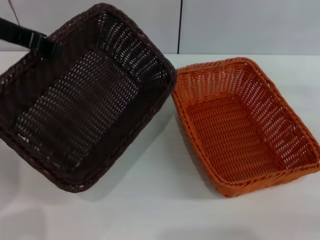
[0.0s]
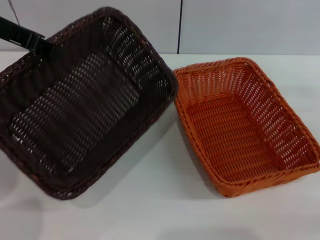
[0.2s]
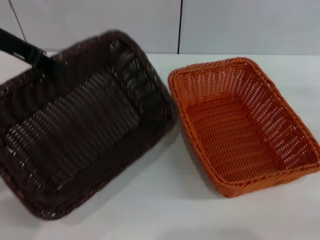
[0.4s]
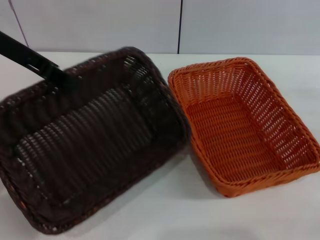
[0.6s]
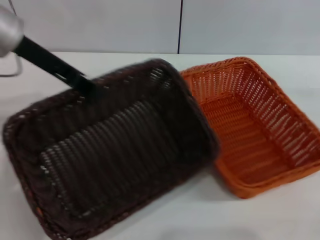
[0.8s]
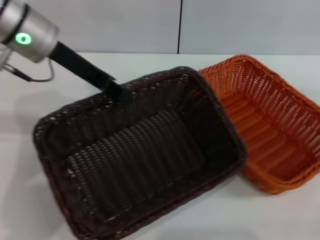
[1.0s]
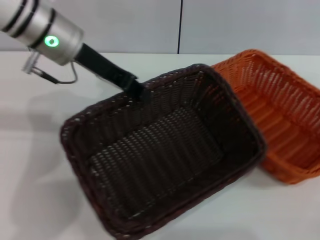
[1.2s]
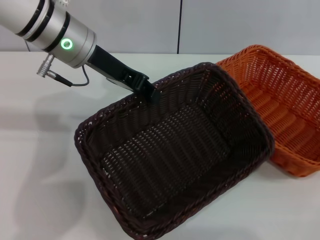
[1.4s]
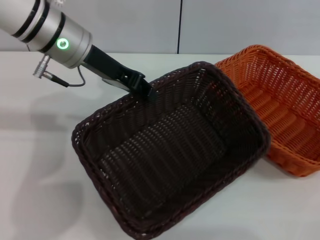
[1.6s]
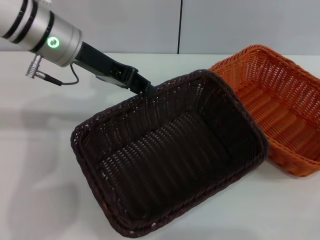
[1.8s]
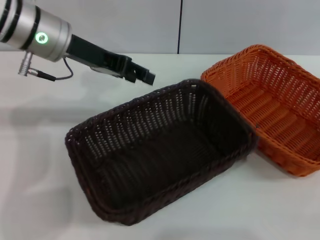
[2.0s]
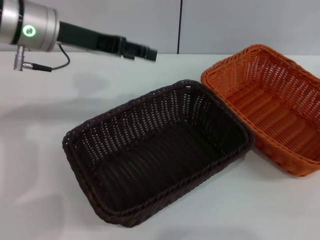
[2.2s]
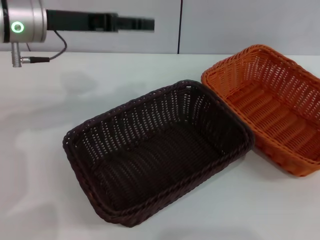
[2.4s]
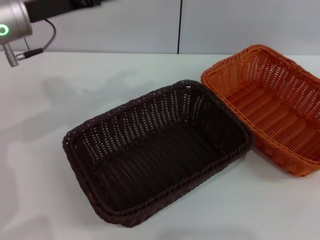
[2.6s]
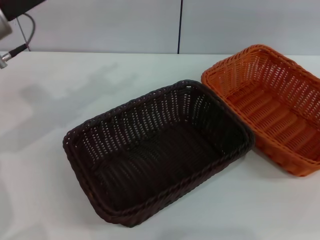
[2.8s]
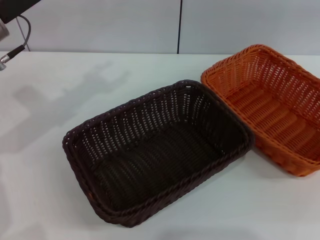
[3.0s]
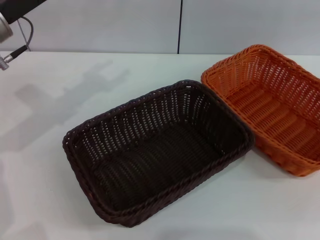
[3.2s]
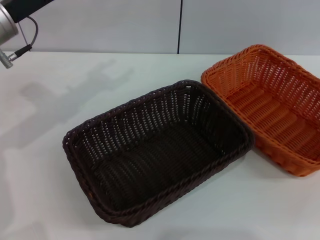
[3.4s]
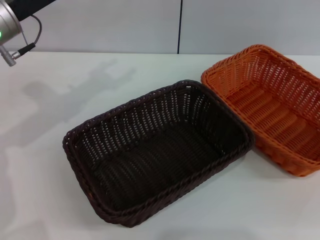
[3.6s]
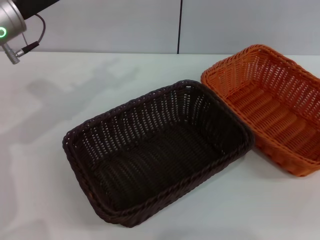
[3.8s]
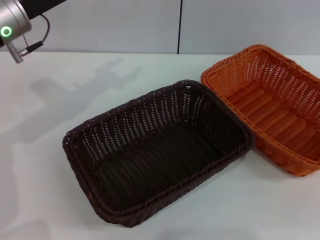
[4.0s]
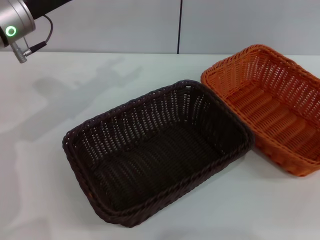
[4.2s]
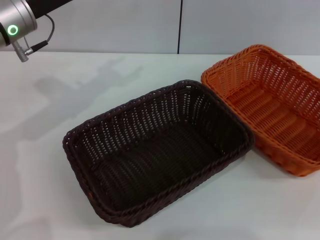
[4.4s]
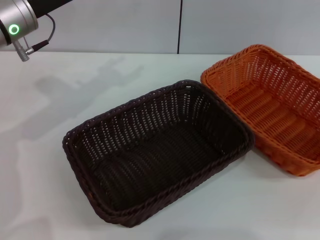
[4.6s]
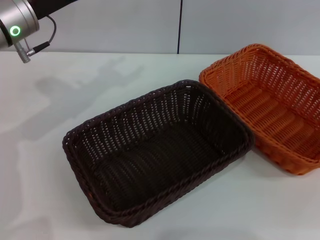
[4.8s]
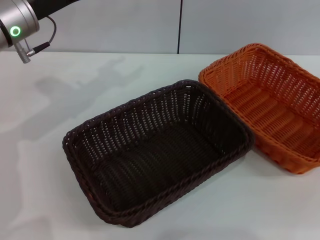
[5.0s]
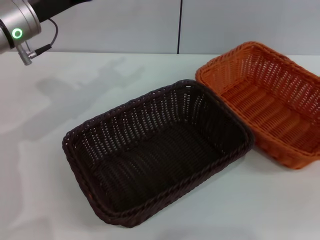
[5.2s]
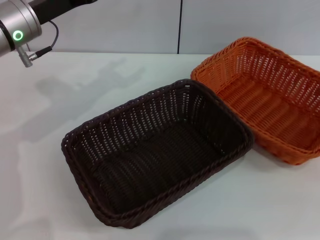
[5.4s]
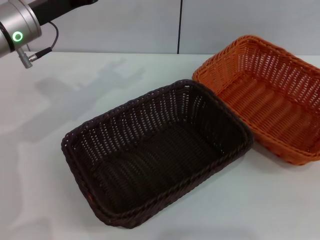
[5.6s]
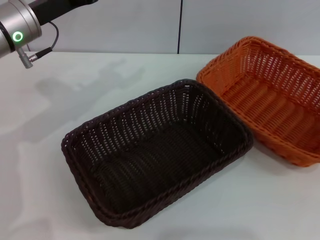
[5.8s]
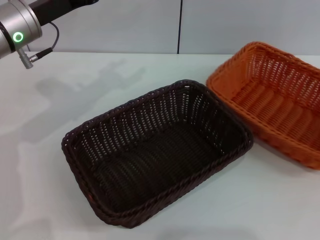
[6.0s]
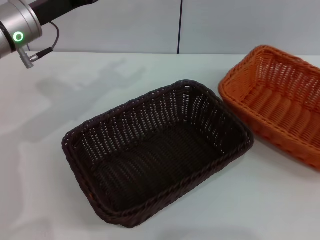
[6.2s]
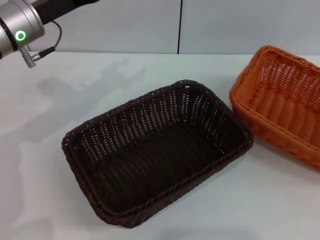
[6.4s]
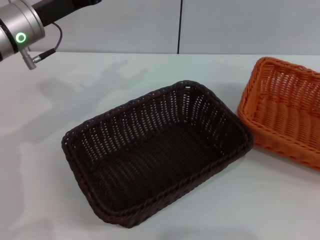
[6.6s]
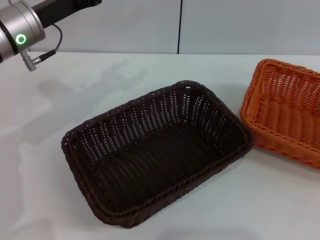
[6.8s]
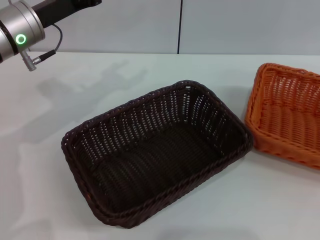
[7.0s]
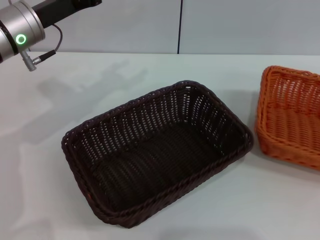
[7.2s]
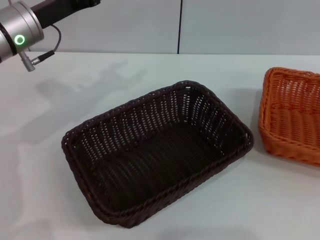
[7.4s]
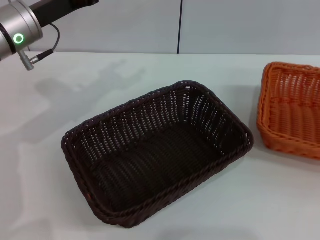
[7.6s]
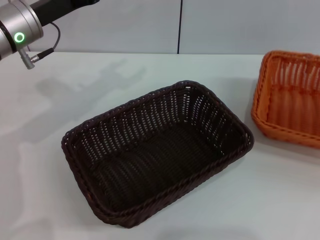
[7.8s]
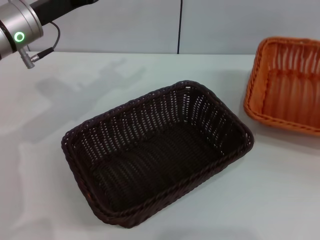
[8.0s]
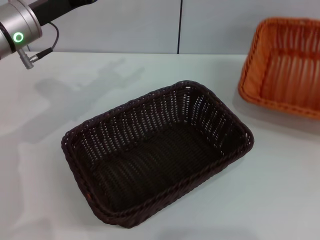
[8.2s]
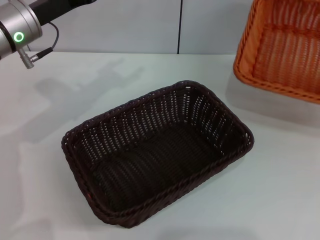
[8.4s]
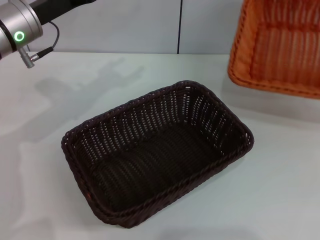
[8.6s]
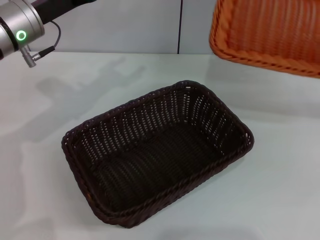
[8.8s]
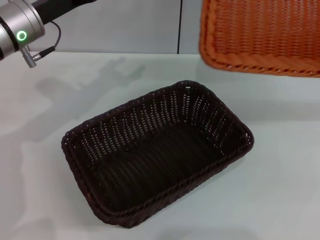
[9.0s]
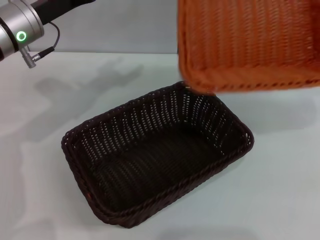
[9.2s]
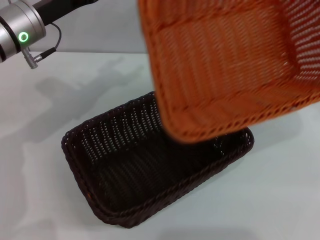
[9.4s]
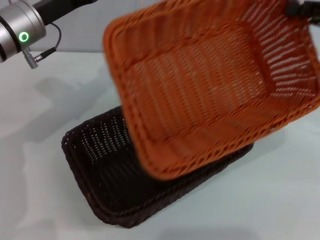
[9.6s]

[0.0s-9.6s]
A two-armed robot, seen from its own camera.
Step, 0.0s to 1.8s: Place the dark basket in the center of view with the left gripper.
Step, 2.2s to 8.2s: Pick up the light basket with the right gripper.
0.0s to 1.6s: The left gripper goes roughly 10 cm to the right and downward.
1.6s to 3.2s: The right gripper goes some 15 cm upward, while the left gripper is displaced to the left by roughly 10 cm, and opens.
3.2s to 4.8s: The right gripper travels downward by roughly 5 cm.
4.8s to 6.4s: The right gripper heads to the right, covering about 5 cm, and closes up.
8.0s to 9.6s: The right gripper moves to the left, about 15 cm.

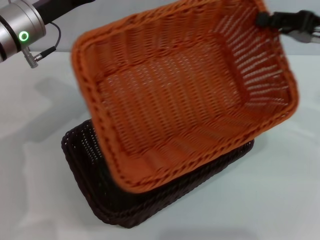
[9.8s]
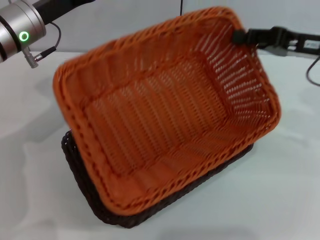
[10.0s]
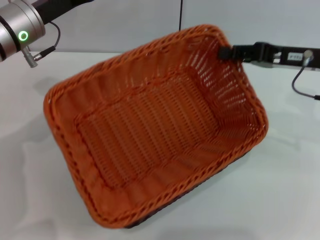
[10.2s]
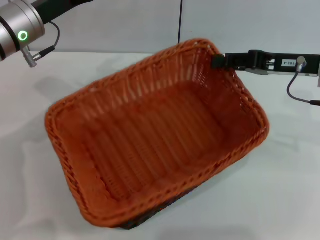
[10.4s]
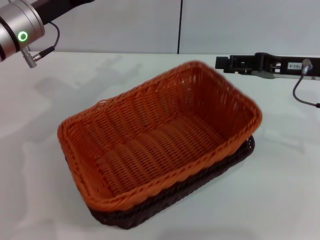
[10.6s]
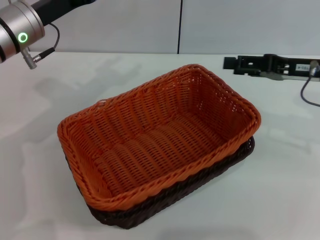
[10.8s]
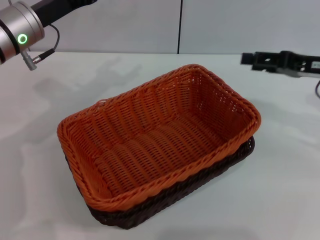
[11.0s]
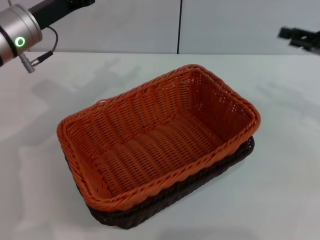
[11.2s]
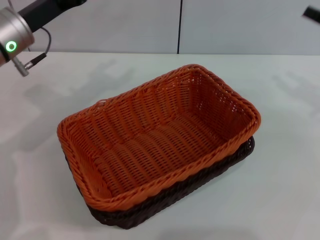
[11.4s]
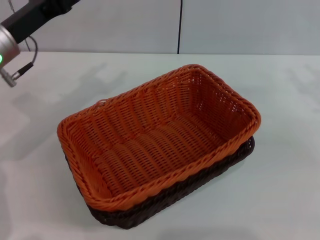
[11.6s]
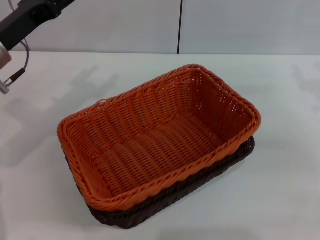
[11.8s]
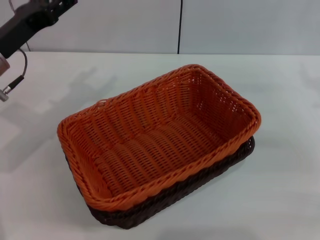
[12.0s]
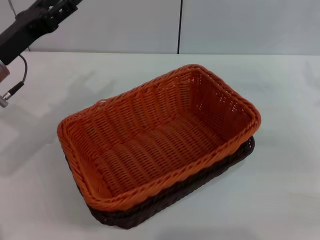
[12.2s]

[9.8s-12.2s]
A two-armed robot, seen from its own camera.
9.8s to 11.0s: The right gripper opens its fingers.
11.0s to 12.2s: The left gripper is displaced backward by approximately 5 cm. The right gripper moves some 5 cm.
